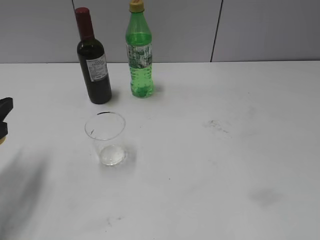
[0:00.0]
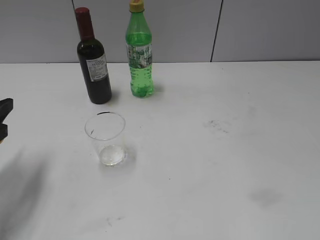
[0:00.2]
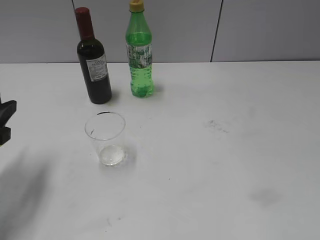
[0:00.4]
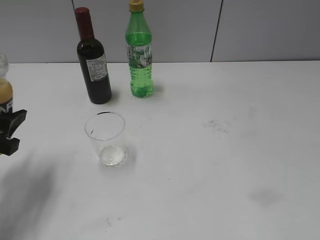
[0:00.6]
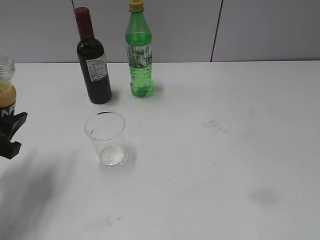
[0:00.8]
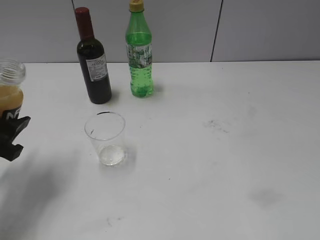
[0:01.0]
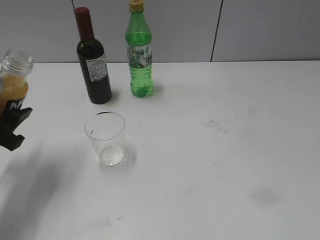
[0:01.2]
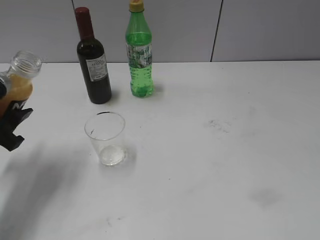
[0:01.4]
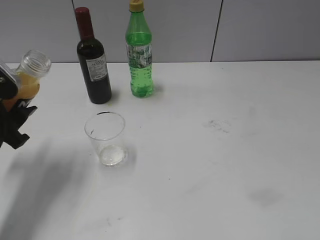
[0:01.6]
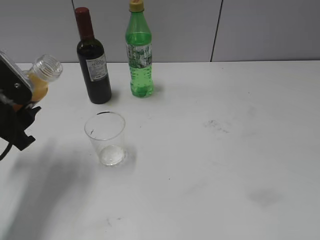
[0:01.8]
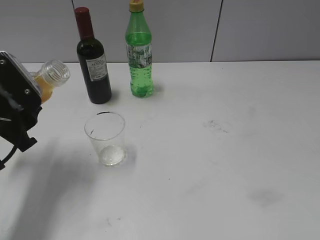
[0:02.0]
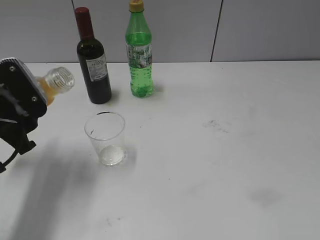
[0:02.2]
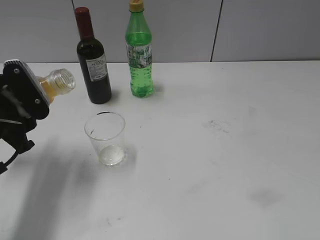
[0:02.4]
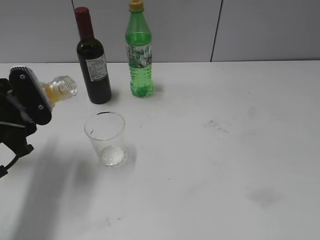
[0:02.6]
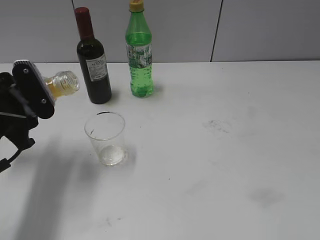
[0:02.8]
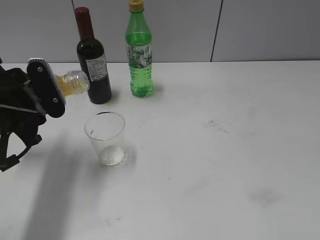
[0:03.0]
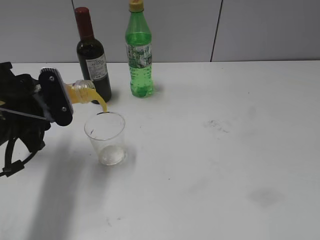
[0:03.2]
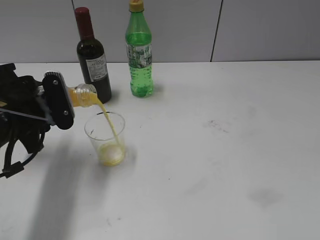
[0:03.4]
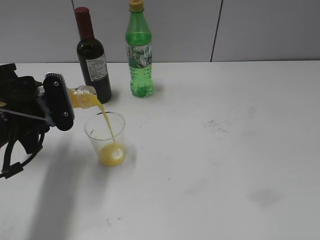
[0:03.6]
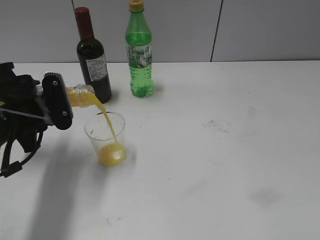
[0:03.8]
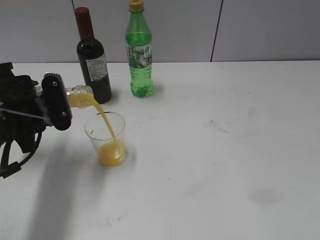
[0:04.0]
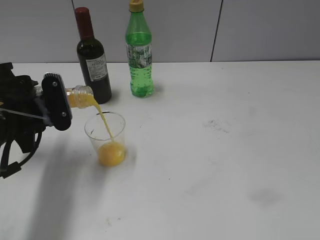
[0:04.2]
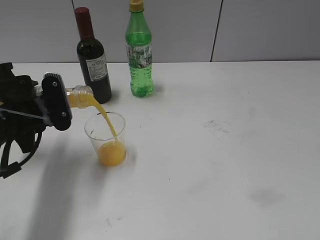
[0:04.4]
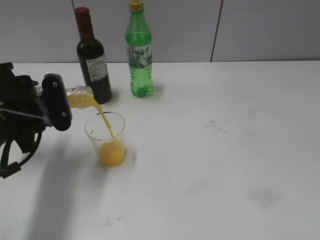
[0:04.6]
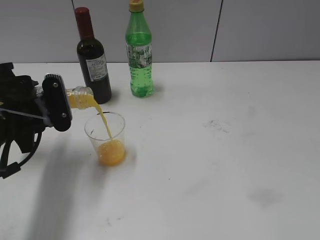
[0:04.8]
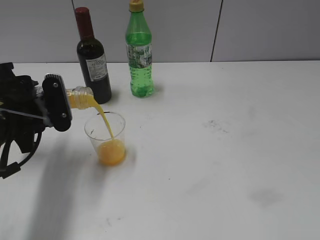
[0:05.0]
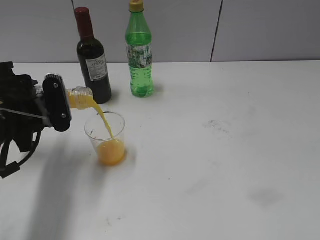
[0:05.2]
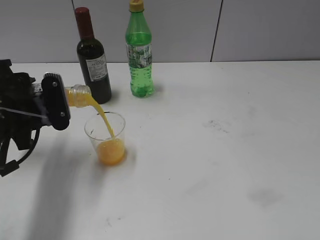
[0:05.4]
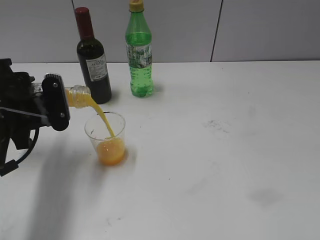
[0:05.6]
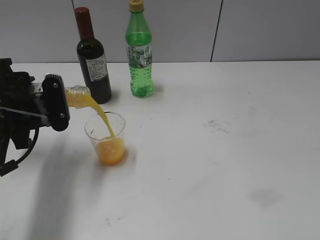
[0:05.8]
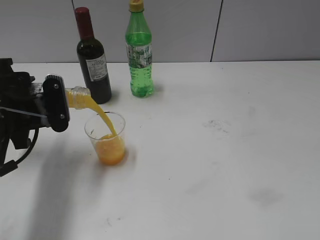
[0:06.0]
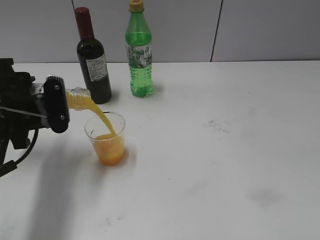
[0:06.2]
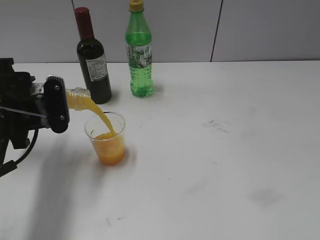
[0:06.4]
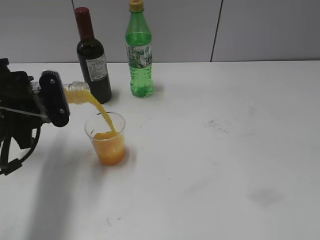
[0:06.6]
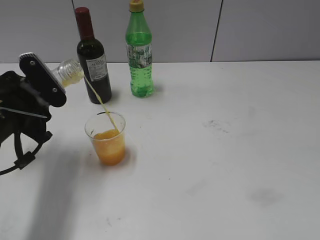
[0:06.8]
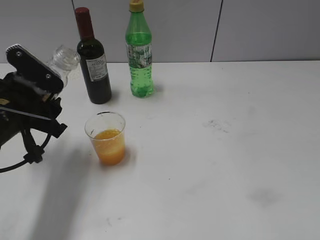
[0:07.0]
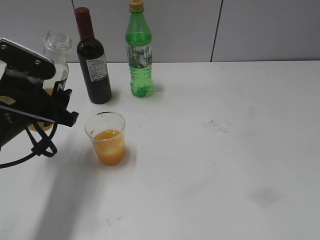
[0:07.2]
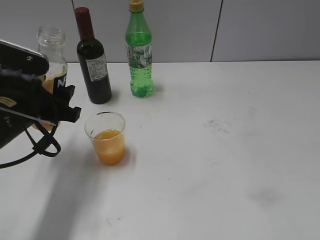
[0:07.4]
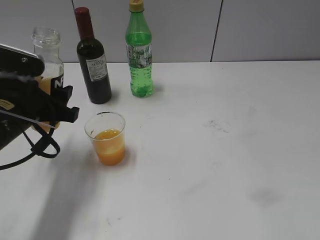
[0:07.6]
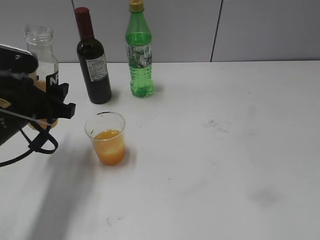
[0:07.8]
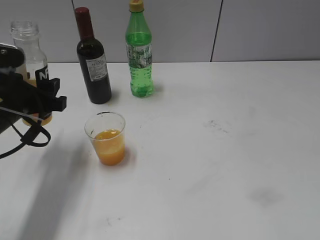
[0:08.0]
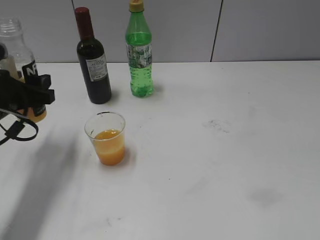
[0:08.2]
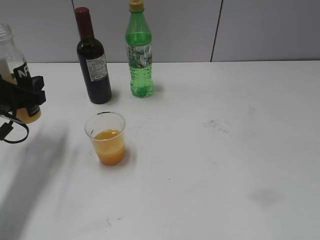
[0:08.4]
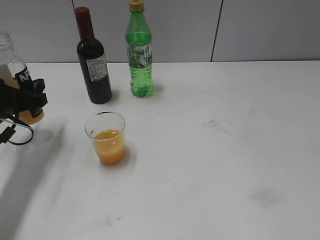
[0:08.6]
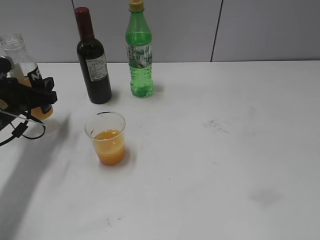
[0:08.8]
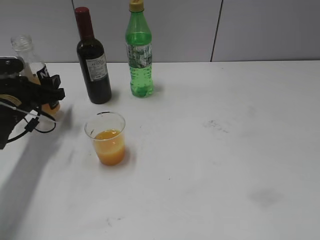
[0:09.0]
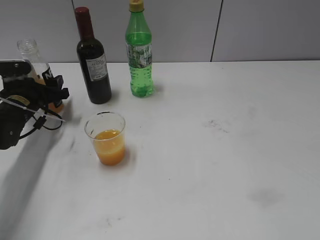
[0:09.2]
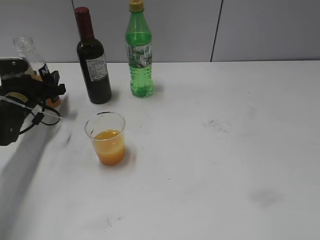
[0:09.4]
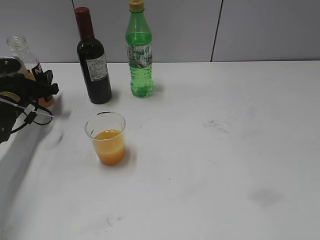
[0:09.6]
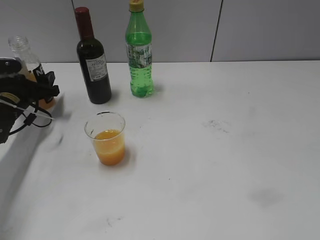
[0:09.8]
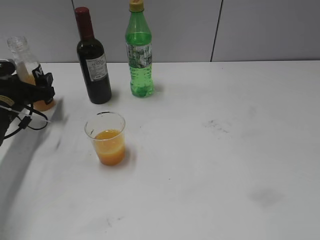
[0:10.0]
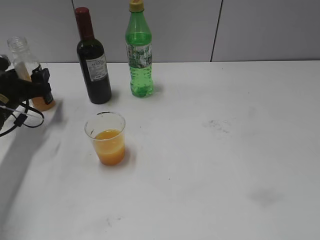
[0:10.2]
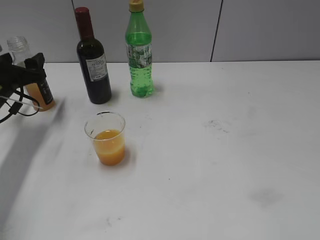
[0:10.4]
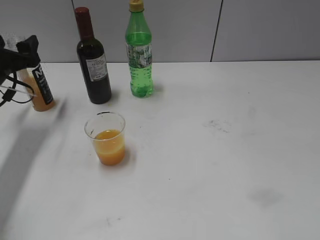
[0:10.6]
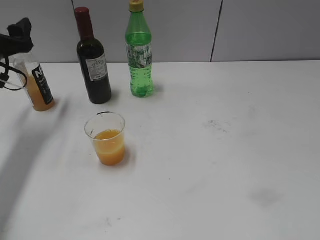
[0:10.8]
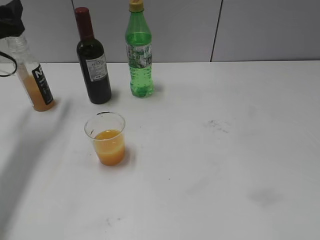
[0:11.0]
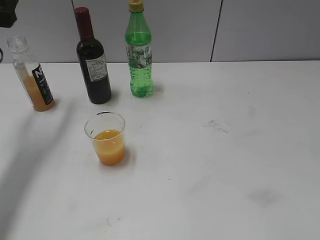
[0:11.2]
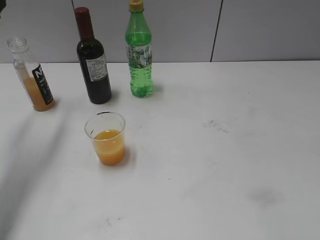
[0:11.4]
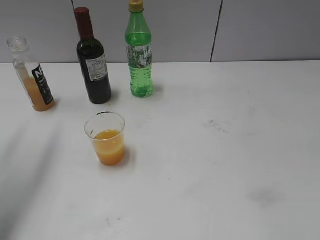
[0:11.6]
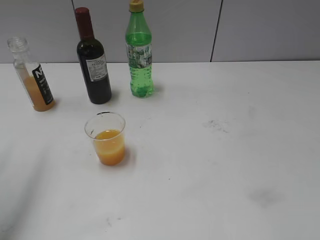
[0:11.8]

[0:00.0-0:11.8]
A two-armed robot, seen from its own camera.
Step, 0:00.0 to 0:06.8: Pour the orange juice from bottle to cup with left gripper.
Step, 0:07.2 to 0:10.0: Place the orange juice bottle on the table with left gripper.
0:01.4 to 0:03.0: The left gripper is displaced to the right by roughly 5 cm.
0:03.0 to 0:06.0: The grippers move only a little.
0:07.4 to 0:08.8: The left gripper is displaced forward, to the left and downward by roughly 15 cm.
0:08.8 to 0:10.4: The left gripper opens.
0:10.4 to 0:11.8: The left gripper heads upward and backward, covering approximately 25 cm.

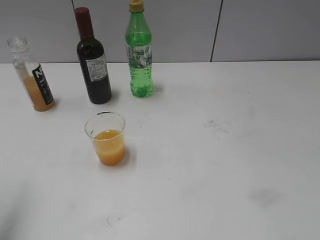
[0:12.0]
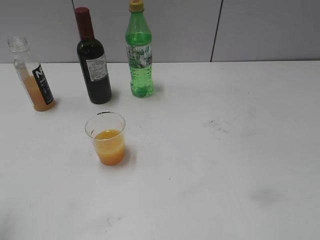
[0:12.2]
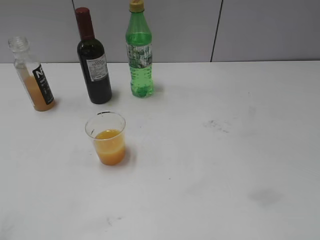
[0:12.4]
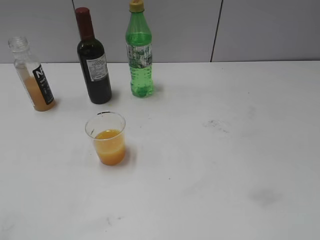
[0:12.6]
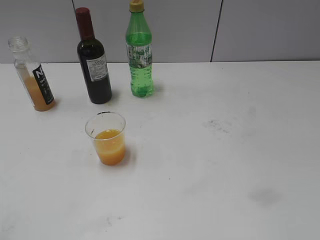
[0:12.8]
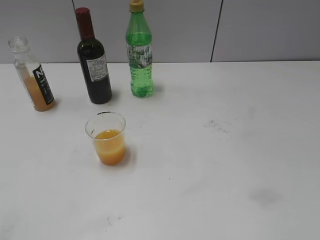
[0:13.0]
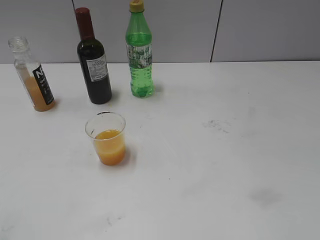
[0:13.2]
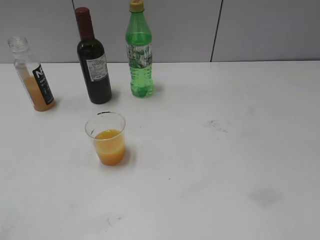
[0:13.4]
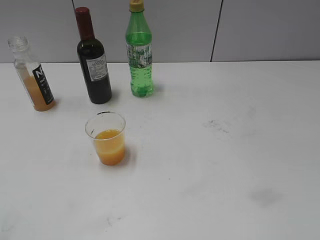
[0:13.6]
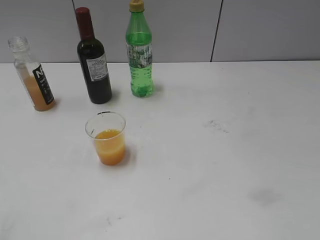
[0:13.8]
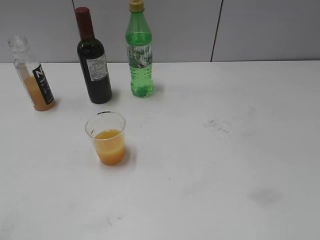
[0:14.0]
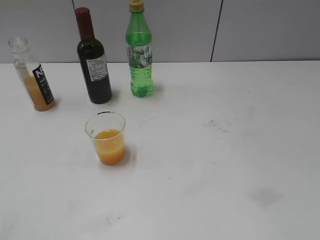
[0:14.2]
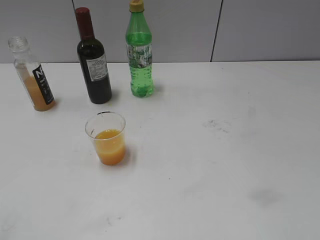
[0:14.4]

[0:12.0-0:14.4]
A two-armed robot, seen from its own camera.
0:12.0 to 0:13.2: The left gripper shifts some 20 cm backward and downward.
0:13.2 to 0:14.4: The two grippers keep their place.
